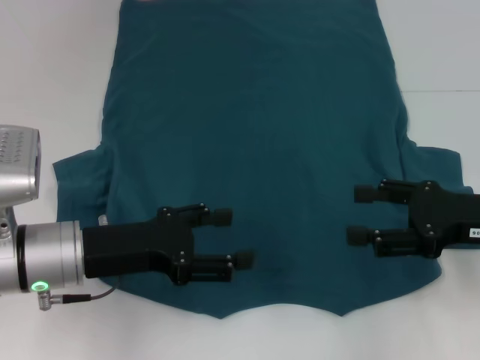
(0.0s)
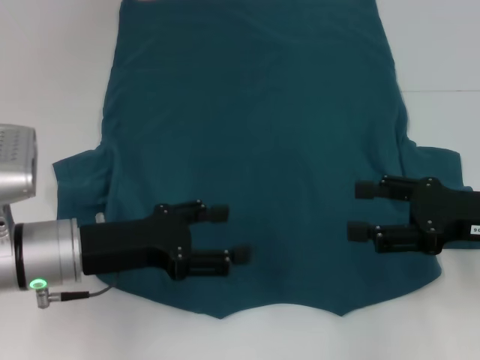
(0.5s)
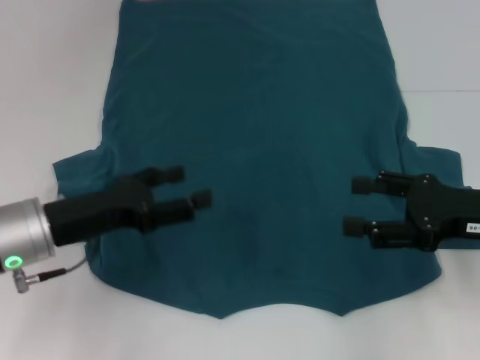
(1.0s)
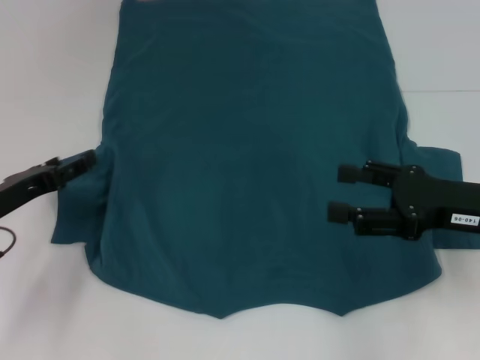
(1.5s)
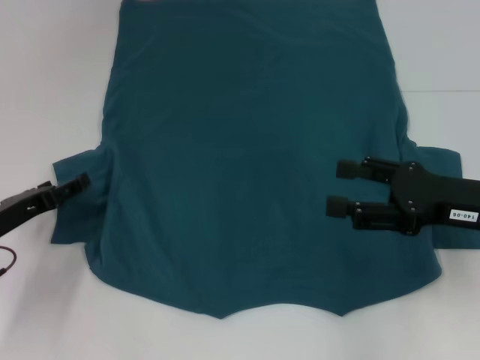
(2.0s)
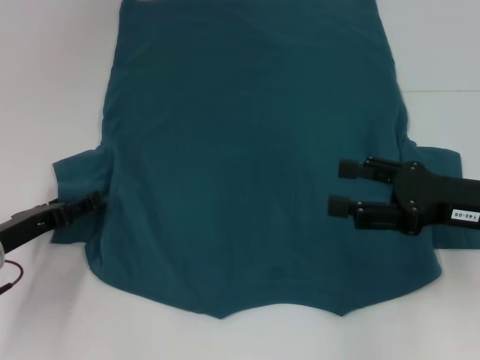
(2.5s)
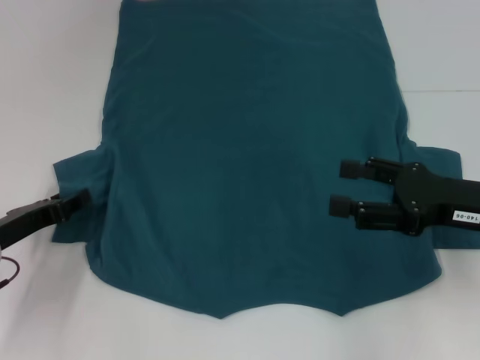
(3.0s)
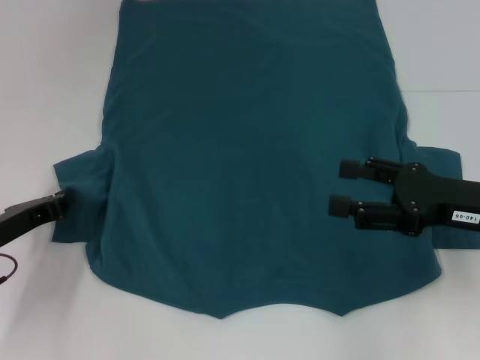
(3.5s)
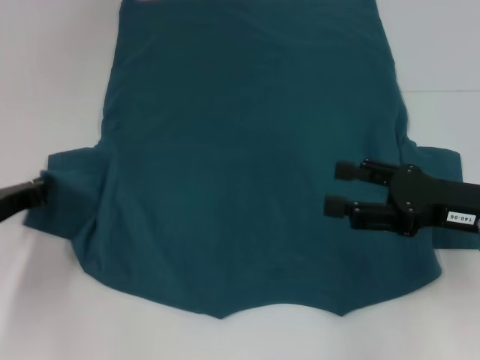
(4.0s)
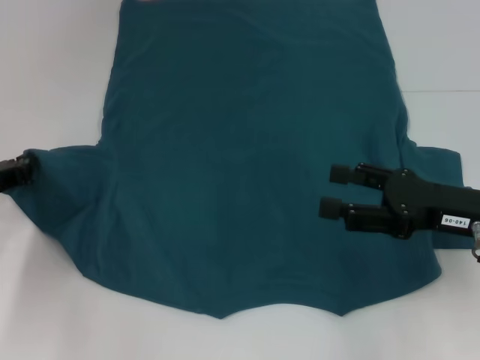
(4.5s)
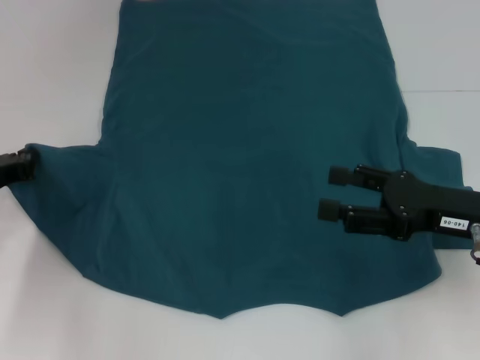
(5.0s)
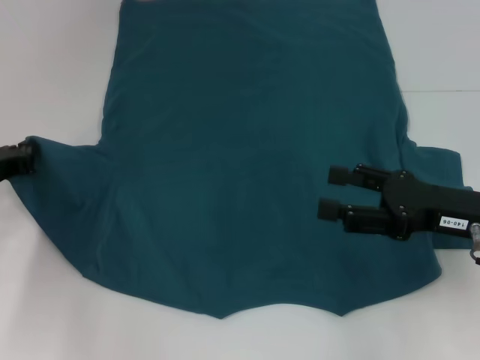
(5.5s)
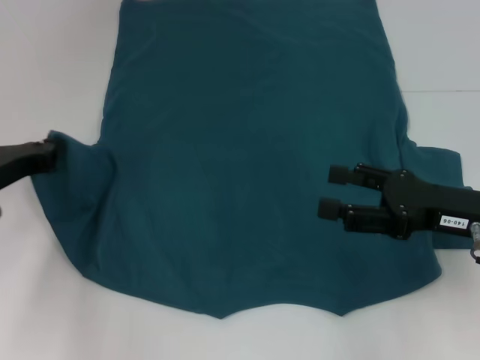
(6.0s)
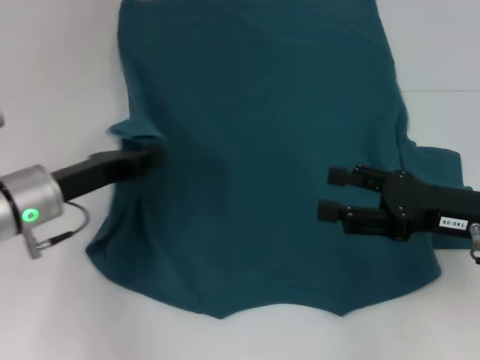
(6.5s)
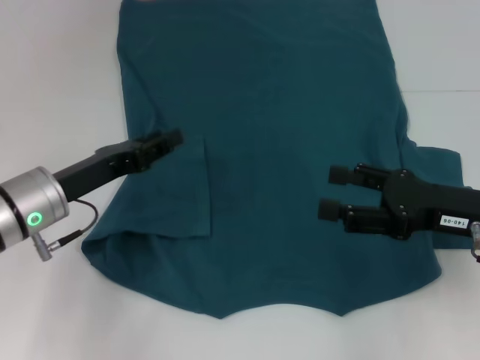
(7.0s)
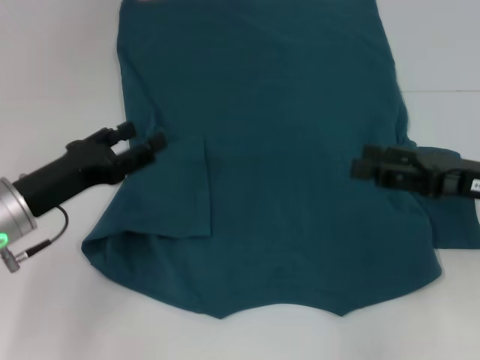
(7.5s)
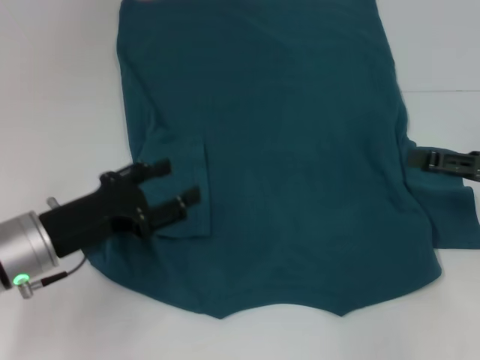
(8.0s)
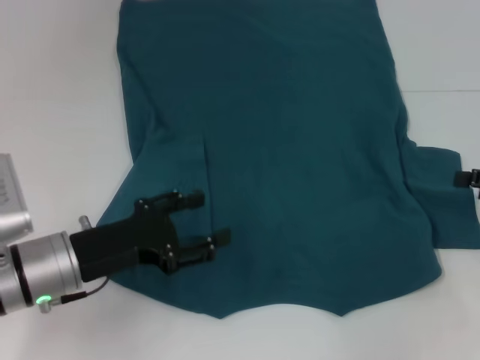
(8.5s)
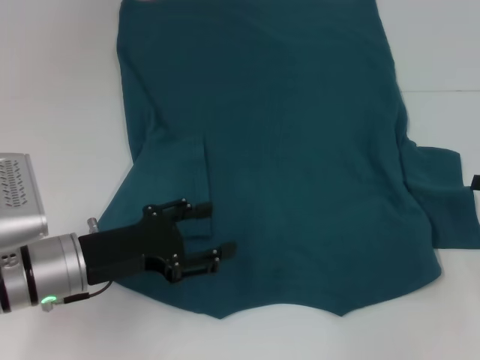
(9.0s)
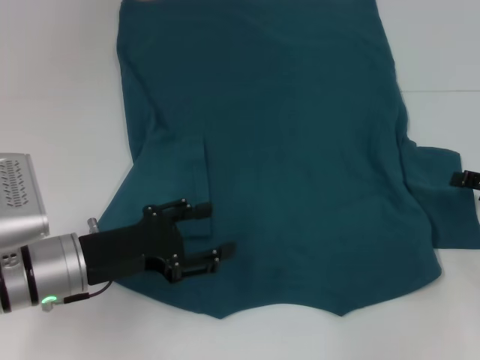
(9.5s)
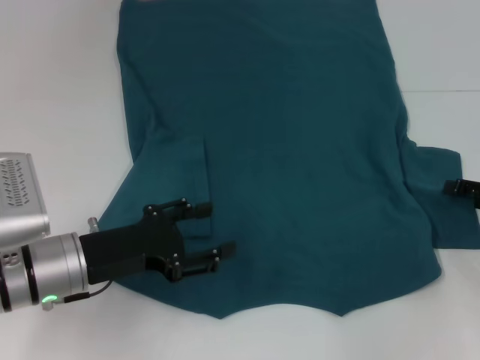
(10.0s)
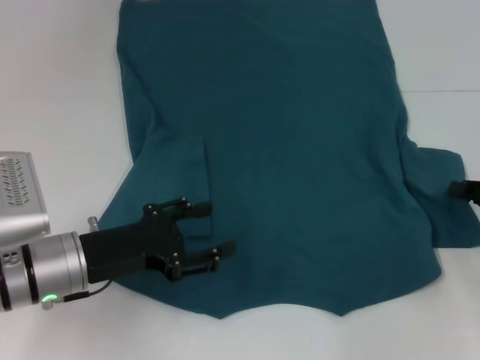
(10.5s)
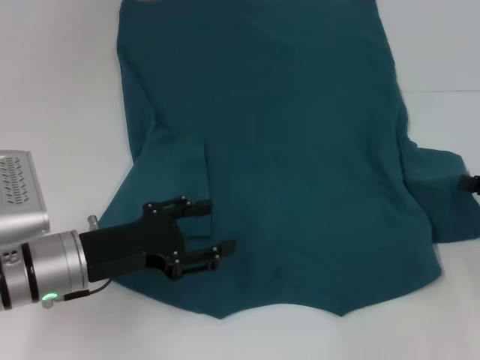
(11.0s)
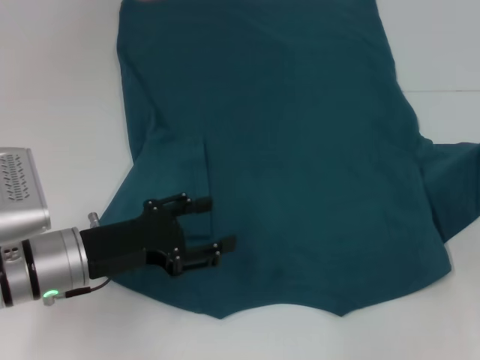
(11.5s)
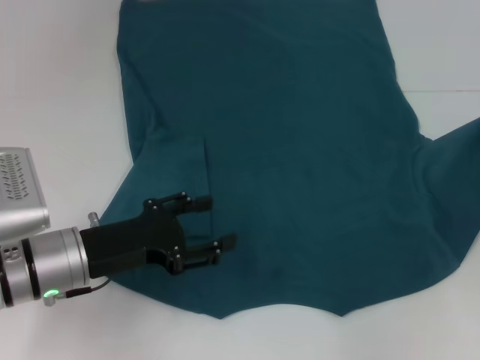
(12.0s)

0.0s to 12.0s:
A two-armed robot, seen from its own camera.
Step, 0.0s to 6.5s: Fold the bottom left sleeve with your left hand.
0.0s to 2.0s: The left gripper heads to the left and downward, covering approximately 10 cm.
2.0s to 4.0s: The left gripper closes.
4.0s to 6.0s: The grippers move only a little.
6.0s to 8.0s: The left gripper shifts some 10 cm to the right and backward, and opens, while the right gripper goes approximately 10 cm to the right.
8.0s to 10.0s: The right gripper goes some 5 cm downward.
10.0s to 12.0s: The right gripper shifts by about 5 cm, and closes its fingers.

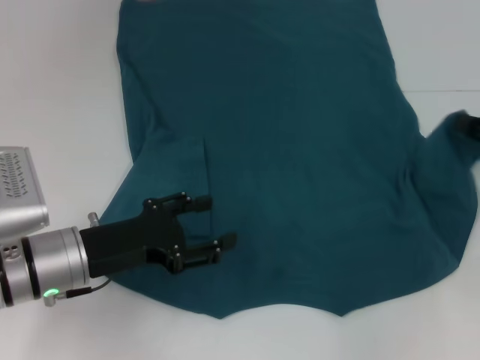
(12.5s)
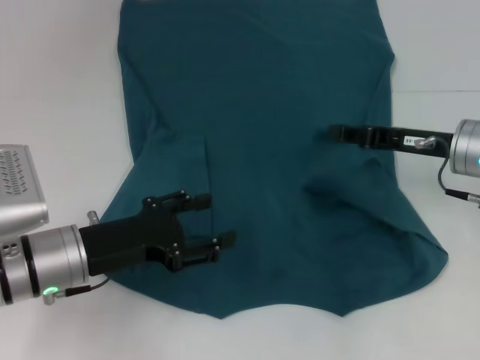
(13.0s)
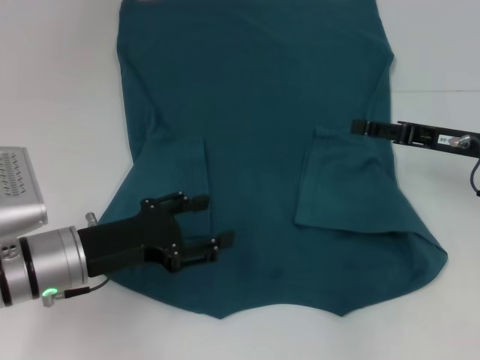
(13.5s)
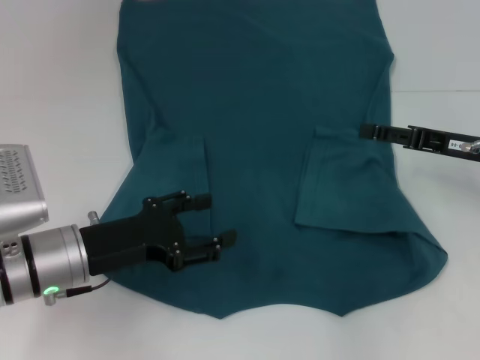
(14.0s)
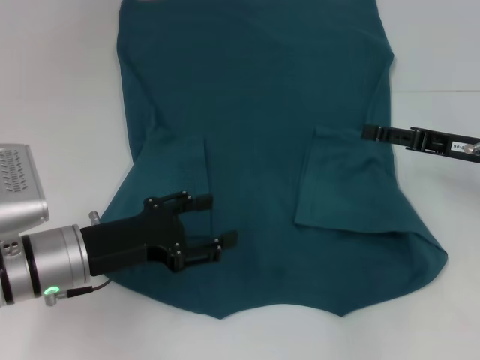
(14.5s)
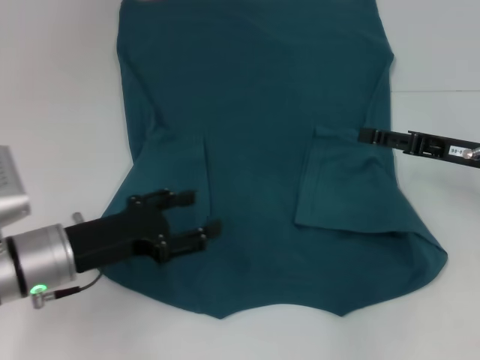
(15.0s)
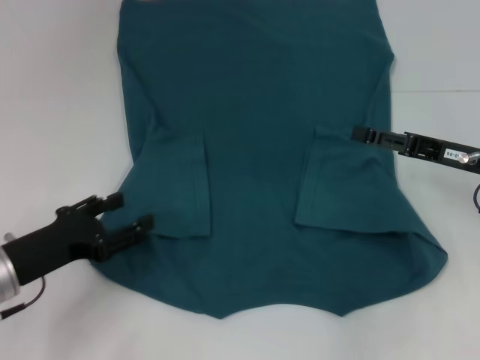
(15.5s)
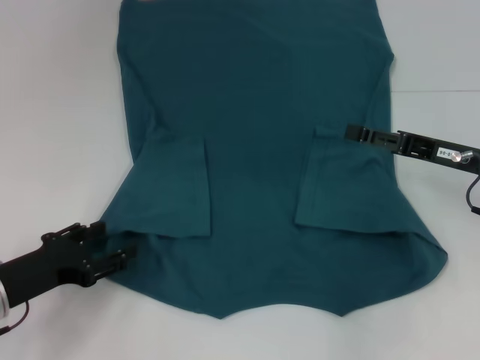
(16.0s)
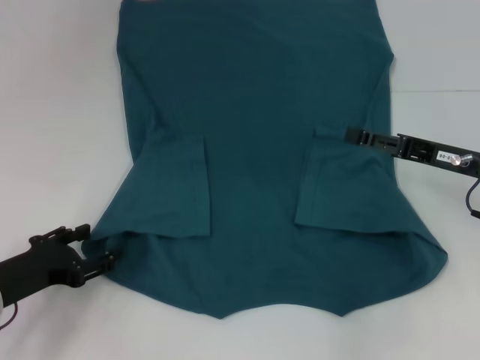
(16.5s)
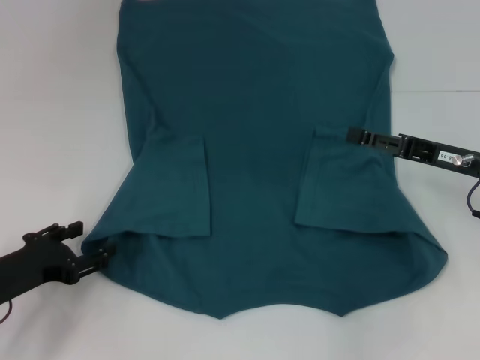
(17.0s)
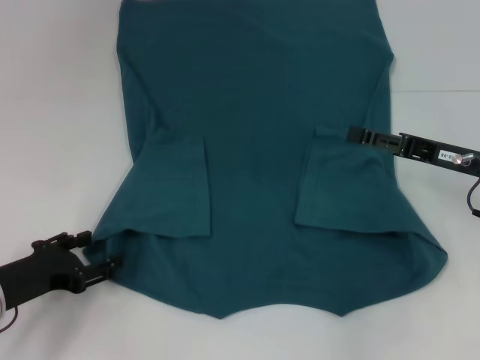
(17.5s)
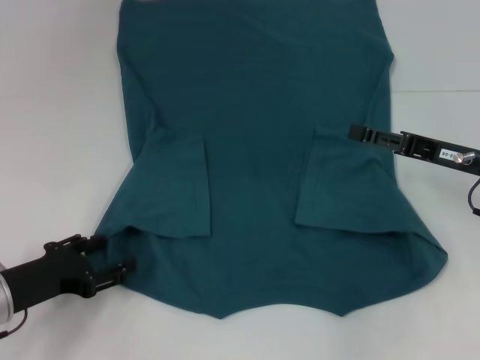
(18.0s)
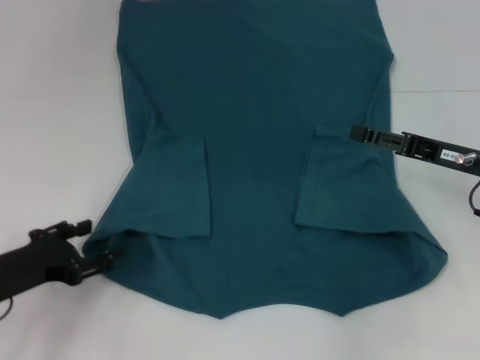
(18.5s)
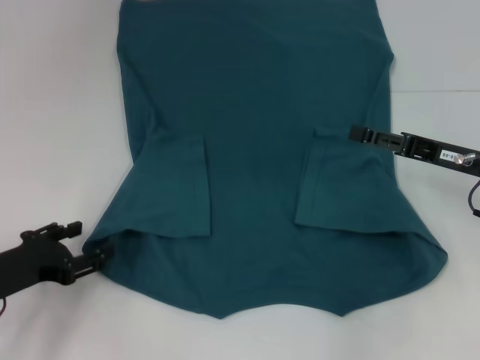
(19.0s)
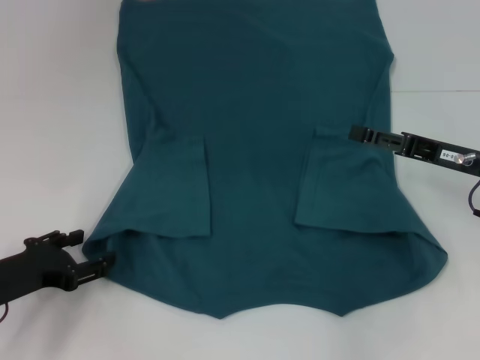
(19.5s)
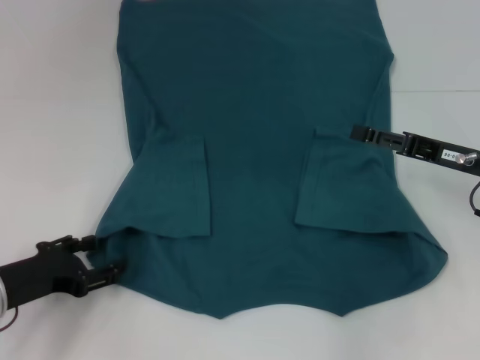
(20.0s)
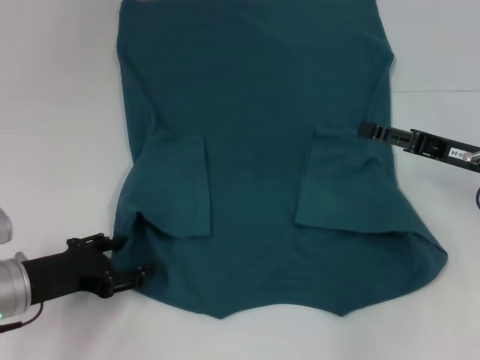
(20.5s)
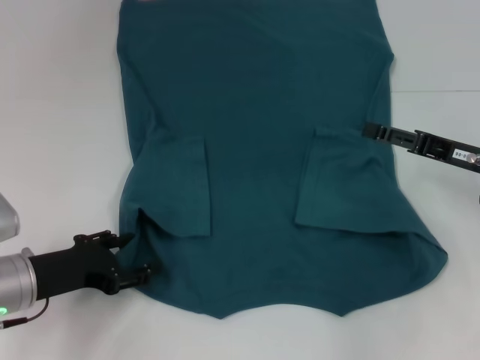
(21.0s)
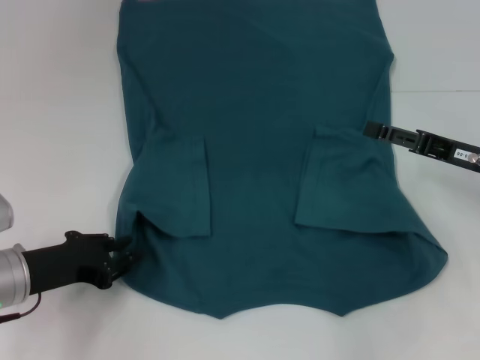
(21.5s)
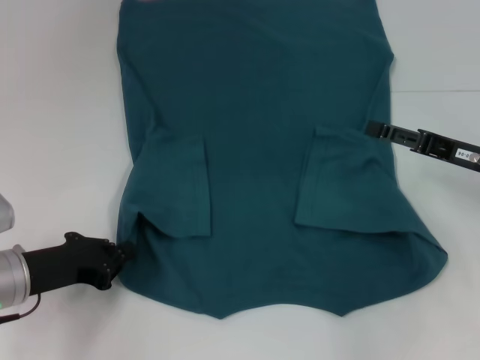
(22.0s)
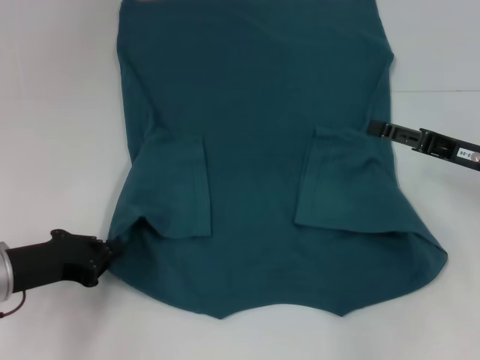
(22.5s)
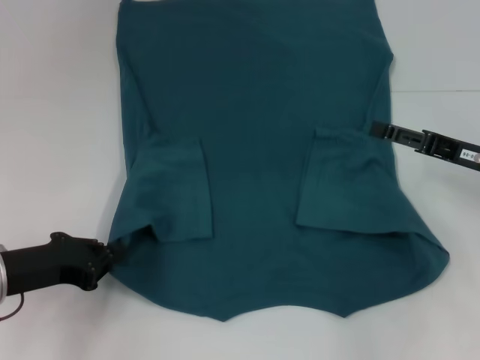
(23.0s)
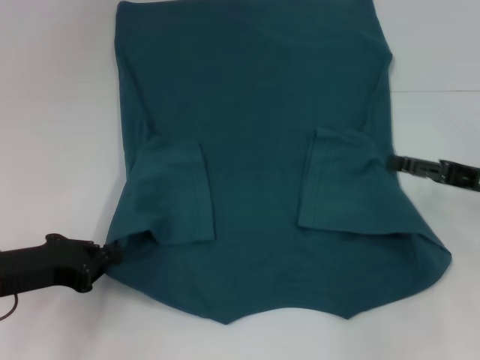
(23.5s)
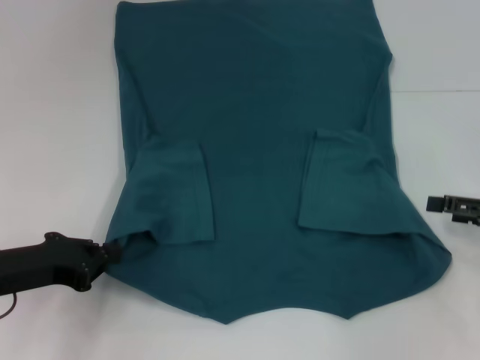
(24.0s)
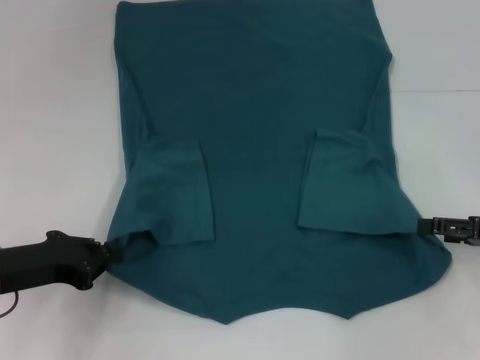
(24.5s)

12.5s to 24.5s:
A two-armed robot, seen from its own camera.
Step, 13.5s to 22.0s: Grab the bottom left corner with your left hand.
12.5s to 14.5s: The right gripper shifts some 5 cm to the left, and opens.
14.5s to 16.5s: The left gripper shifts roughly 10 cm to the left.
16.5s to 20.5s: The grippers make only small movements.
20.5s to 22.5s: The left gripper closes up.
22.5s to 24.5s: The right gripper heads to the right, covering roughly 5 cm.

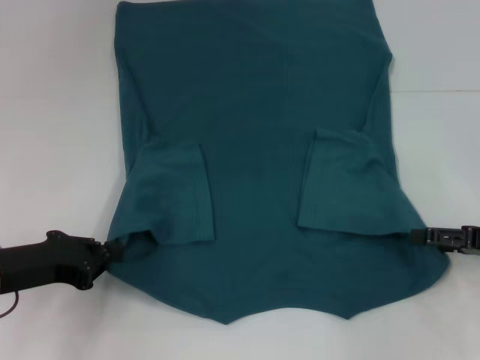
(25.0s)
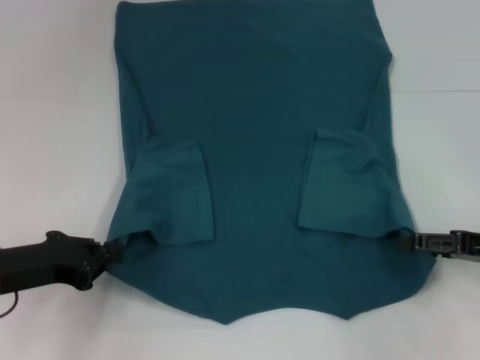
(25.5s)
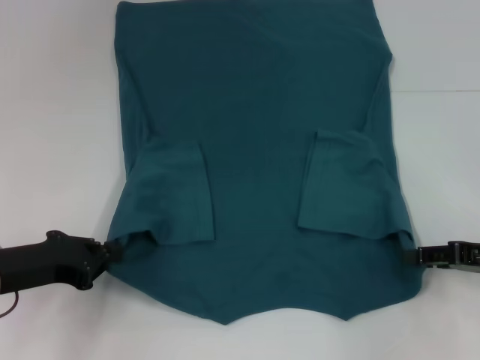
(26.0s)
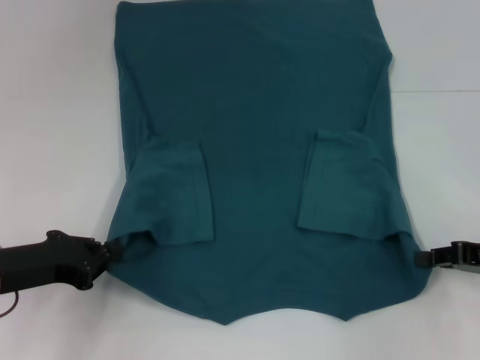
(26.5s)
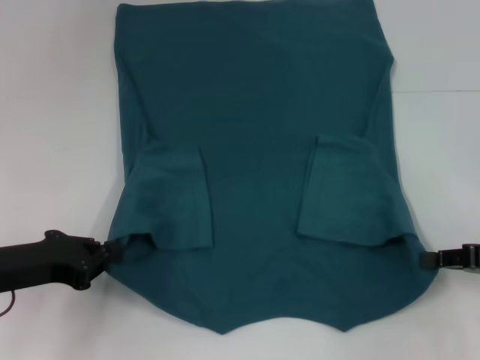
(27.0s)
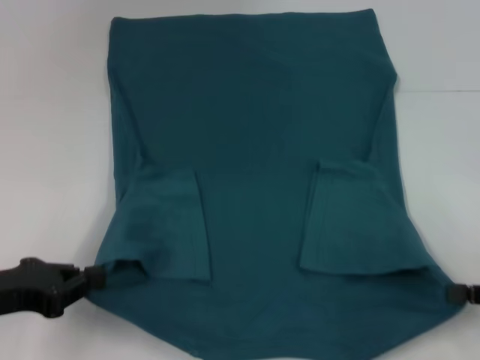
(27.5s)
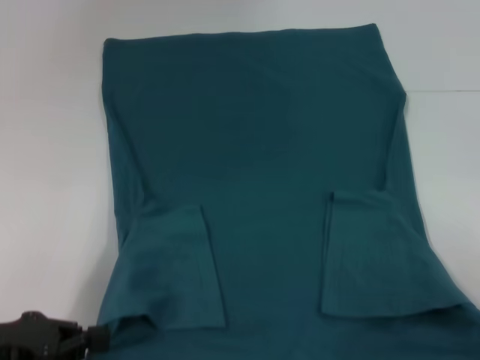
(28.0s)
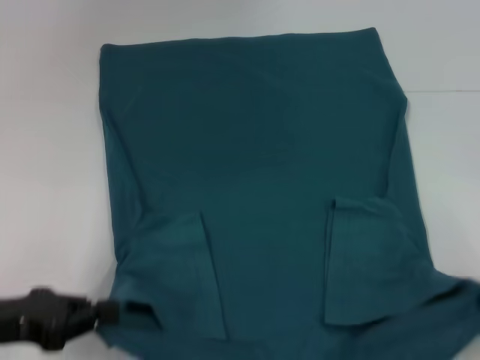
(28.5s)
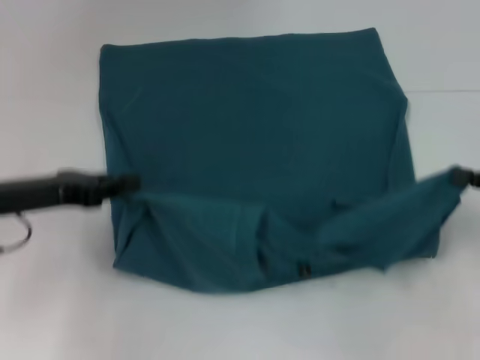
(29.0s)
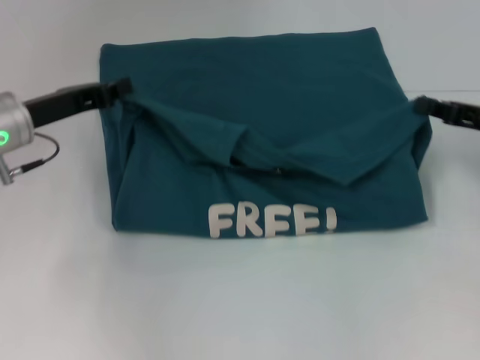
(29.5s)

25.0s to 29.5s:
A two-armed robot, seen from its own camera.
25.0s to 27.0s: The right gripper closes up.
27.0s to 29.5s: The two grippers go about 10 cm forward.
